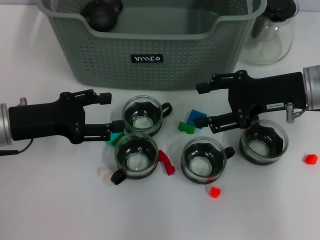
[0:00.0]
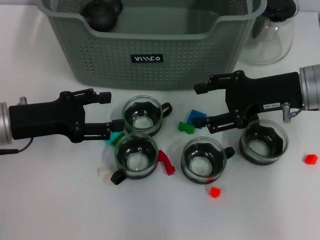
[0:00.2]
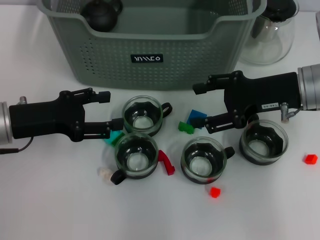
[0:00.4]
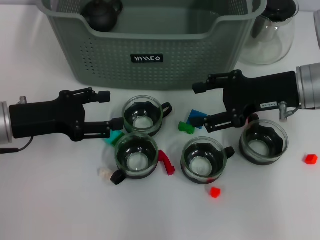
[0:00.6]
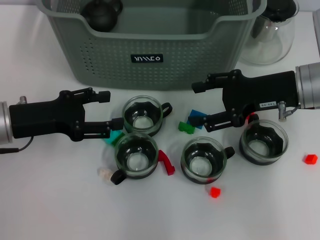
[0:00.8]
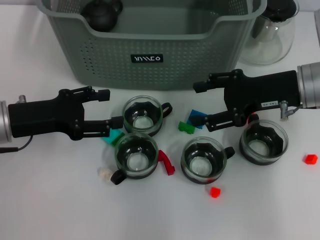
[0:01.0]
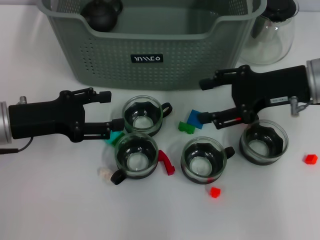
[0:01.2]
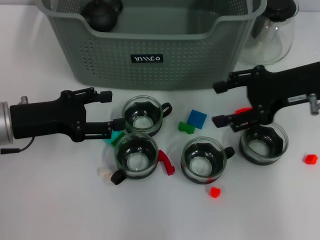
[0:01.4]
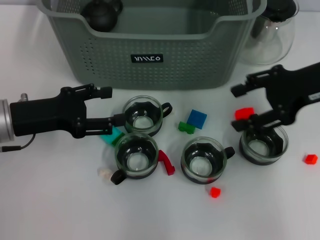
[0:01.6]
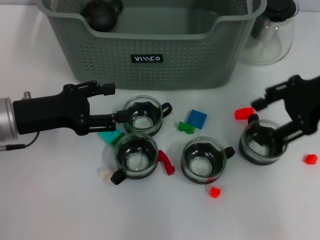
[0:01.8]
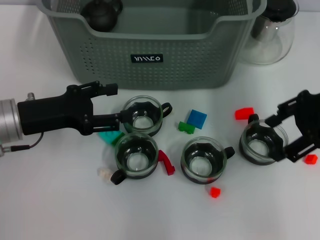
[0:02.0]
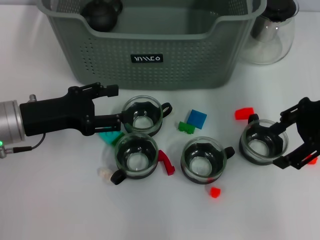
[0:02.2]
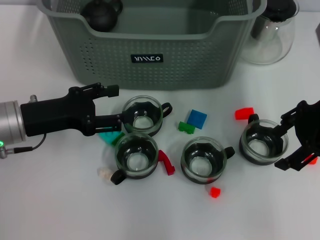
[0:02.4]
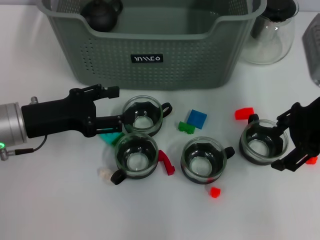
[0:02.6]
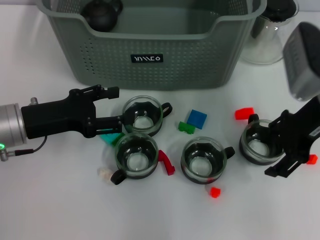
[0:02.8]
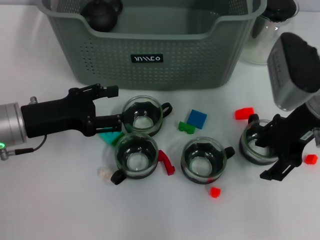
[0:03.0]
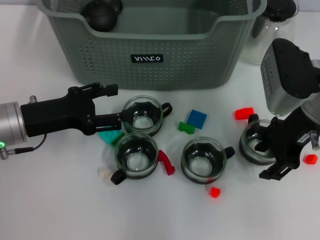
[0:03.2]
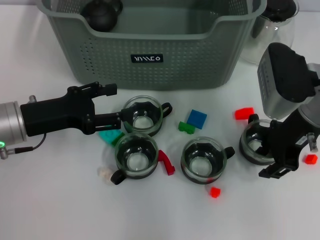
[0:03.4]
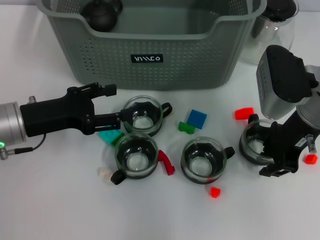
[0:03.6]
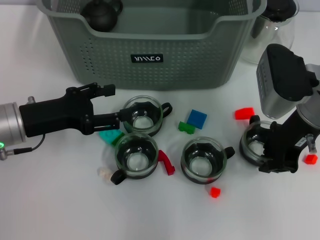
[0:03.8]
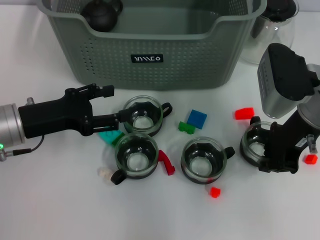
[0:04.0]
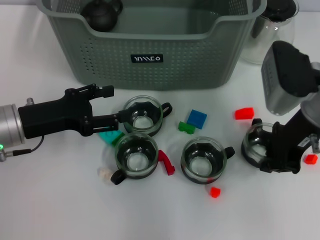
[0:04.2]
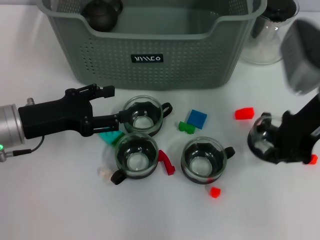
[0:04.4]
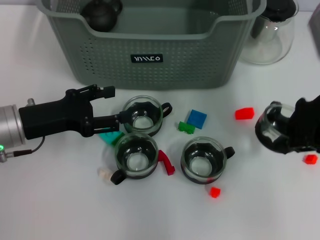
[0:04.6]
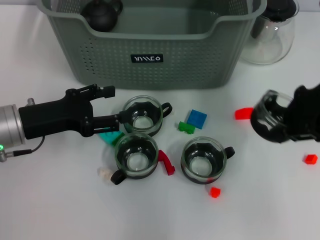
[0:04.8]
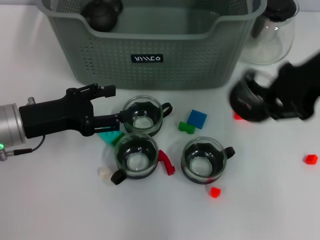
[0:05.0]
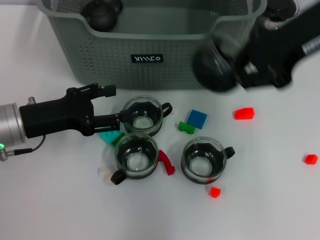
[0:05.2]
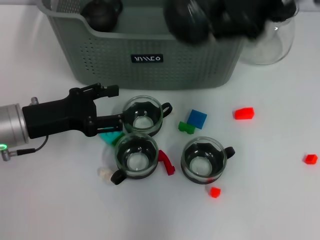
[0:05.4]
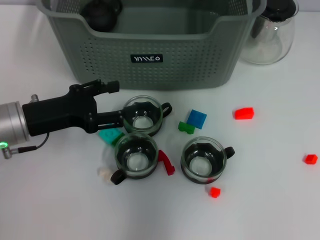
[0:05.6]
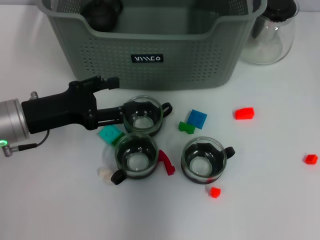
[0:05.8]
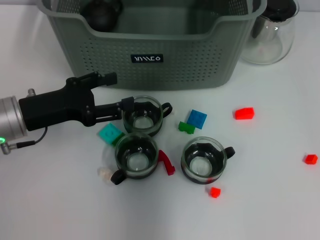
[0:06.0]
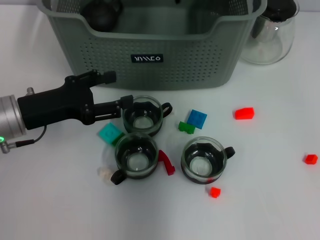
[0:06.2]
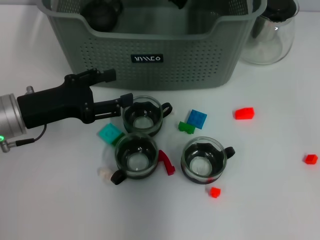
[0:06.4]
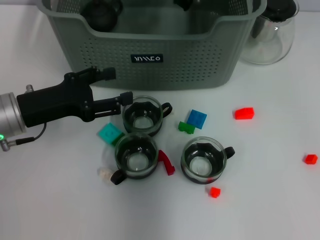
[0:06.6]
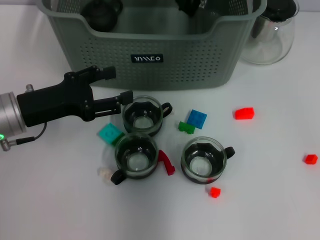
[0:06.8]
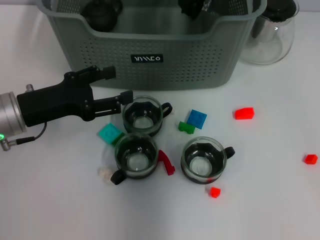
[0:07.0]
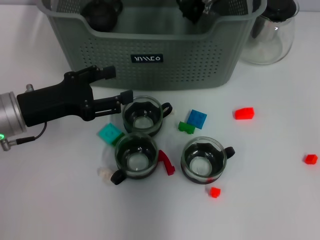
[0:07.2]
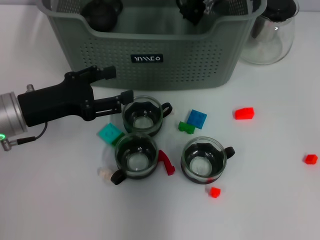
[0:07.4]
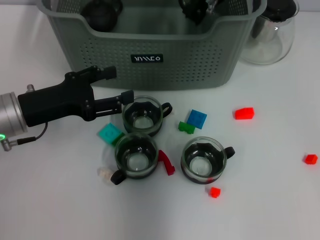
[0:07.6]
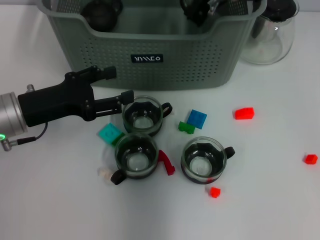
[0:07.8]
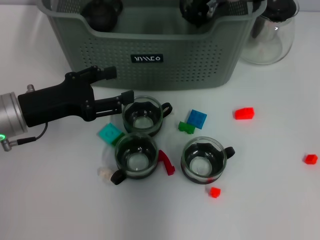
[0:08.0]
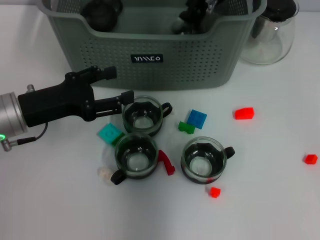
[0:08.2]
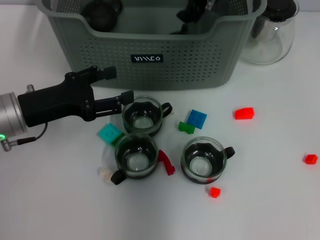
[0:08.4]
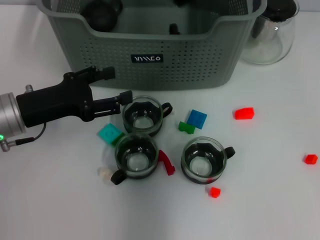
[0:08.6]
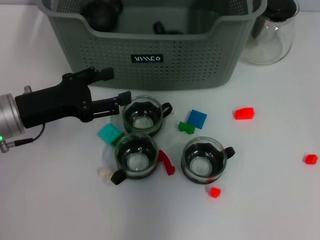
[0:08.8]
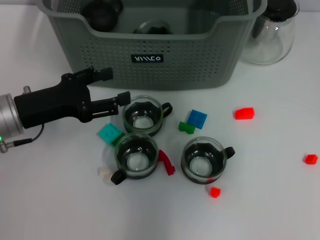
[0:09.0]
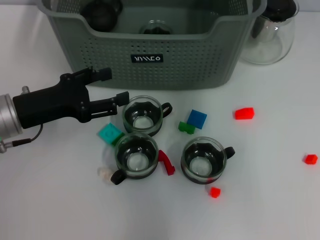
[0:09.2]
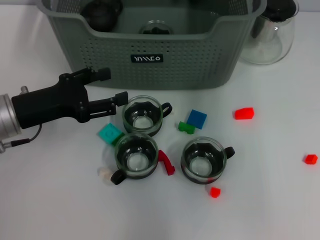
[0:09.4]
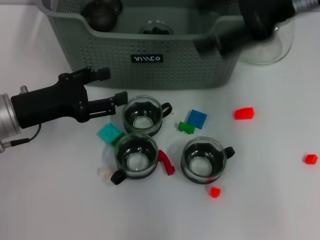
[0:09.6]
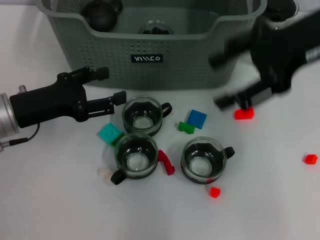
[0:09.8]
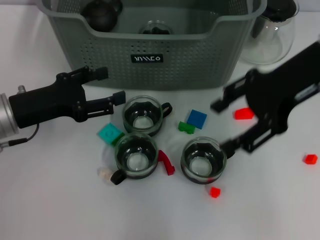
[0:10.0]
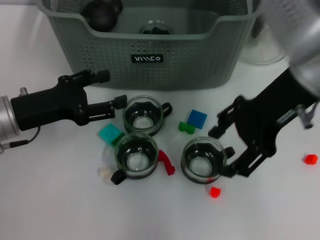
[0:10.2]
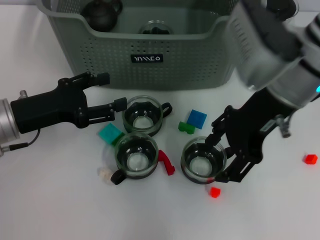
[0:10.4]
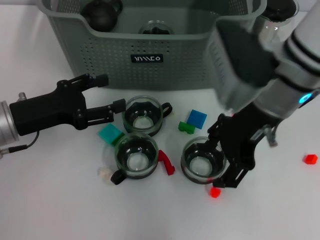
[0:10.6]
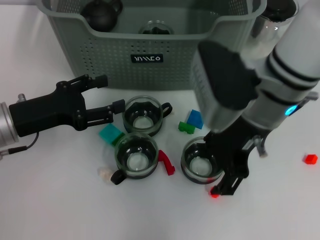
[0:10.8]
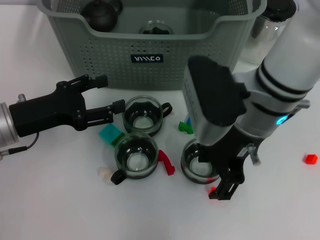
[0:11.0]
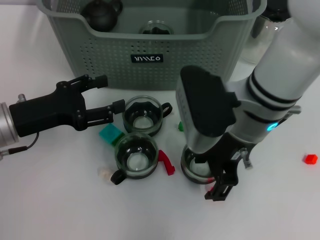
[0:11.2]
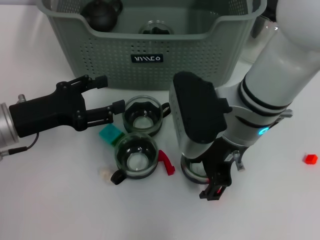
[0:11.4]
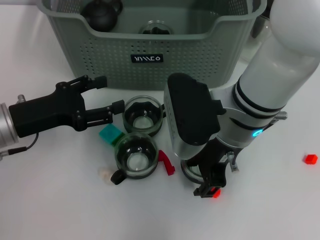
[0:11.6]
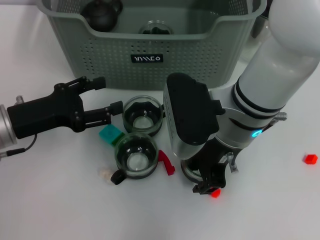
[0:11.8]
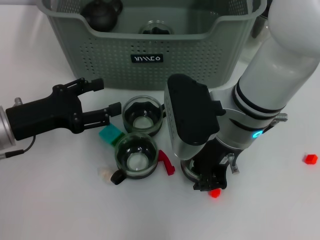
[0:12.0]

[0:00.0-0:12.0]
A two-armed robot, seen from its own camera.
Task of the whole recording: pick up the teacup on the table and place it into the storage bin, pick up the block on the table and place it into the storage bin.
Step, 0:00.0 to 0:04.0: Grasp the cup with right gripper.
Step, 0:04.2 to 0:08.4: Place the cup in the storage box with right gripper.
0:00.0 to 0:01.6: The right gripper moves upward, some 5 cm.
0:01.6 to 0:03.0: The right gripper changes place by approximately 5 cm.
0:03.0 to 0:04.4: The right gripper closes.
0:04.4 to 0:06.0: The right gripper goes some 20 cm forward, to the left and upward.
0:06.0 to 0:07.6: The right gripper goes roughly 5 cm downward.
0:07.6 to 0:09.0: The right gripper heads upward, covering some 10 cm, and opens.
0:09.0 to 0:10.4: The right gripper shifts approximately 15 cm downward and backward.
0:10.4 to 0:12.0: The right gripper is displaced downward and to the left by roughly 10 cm, and closes up.

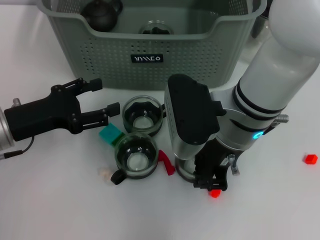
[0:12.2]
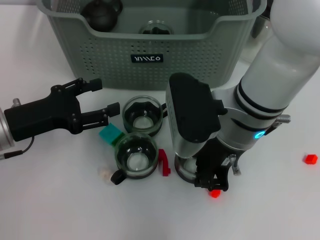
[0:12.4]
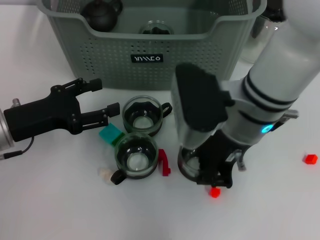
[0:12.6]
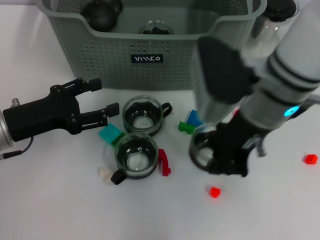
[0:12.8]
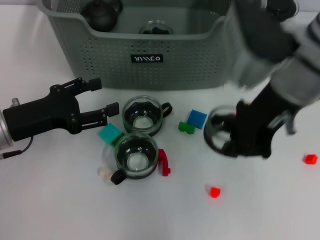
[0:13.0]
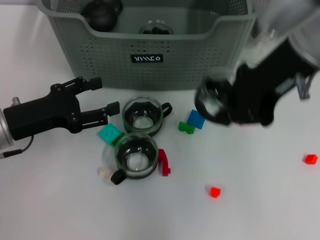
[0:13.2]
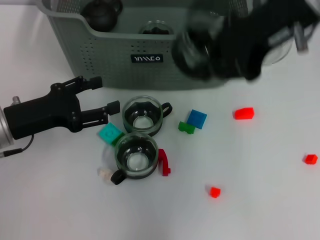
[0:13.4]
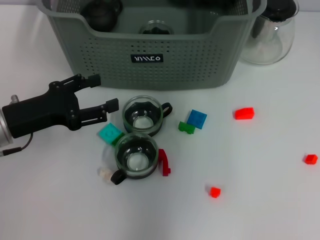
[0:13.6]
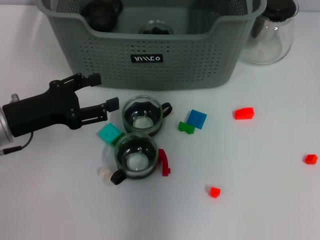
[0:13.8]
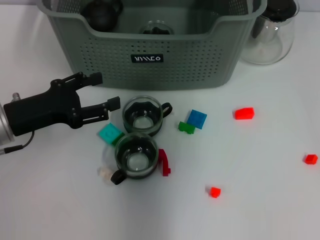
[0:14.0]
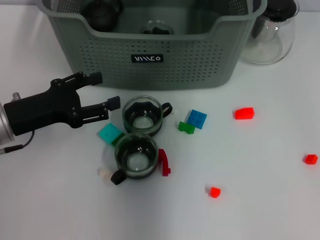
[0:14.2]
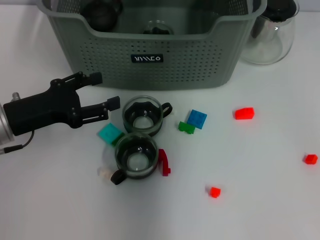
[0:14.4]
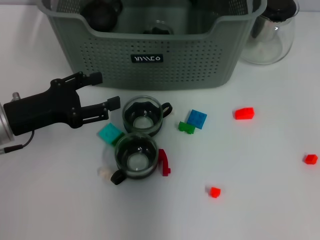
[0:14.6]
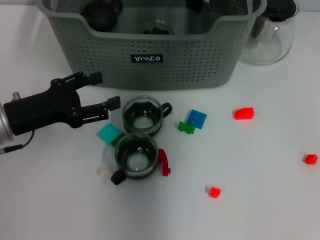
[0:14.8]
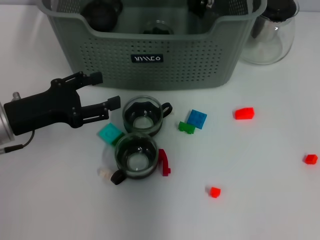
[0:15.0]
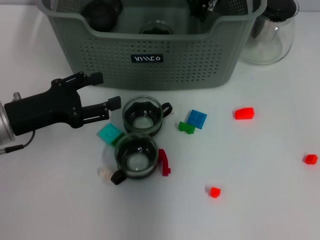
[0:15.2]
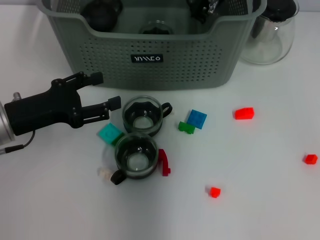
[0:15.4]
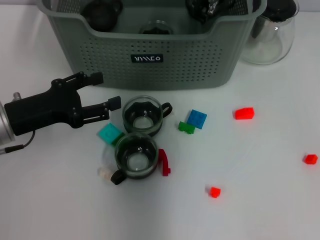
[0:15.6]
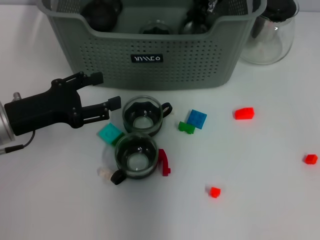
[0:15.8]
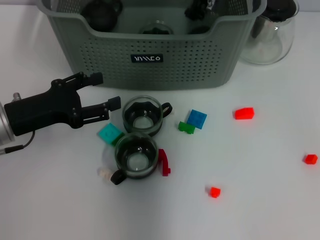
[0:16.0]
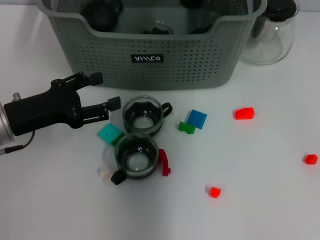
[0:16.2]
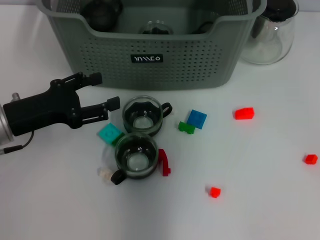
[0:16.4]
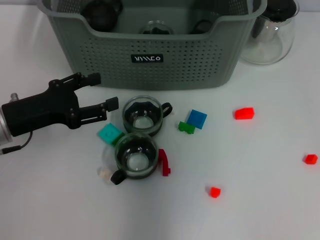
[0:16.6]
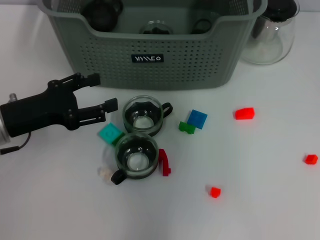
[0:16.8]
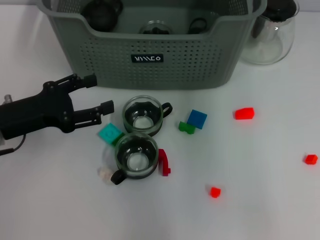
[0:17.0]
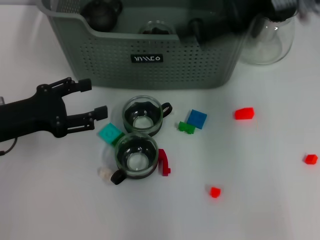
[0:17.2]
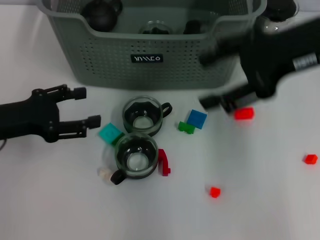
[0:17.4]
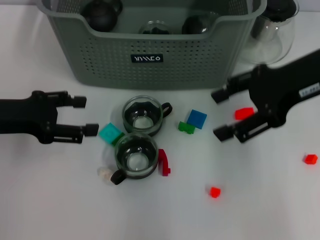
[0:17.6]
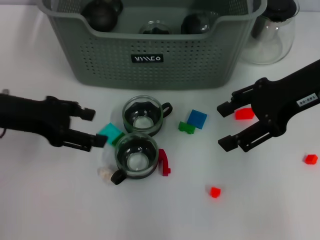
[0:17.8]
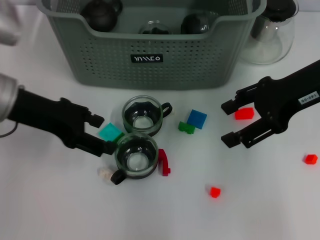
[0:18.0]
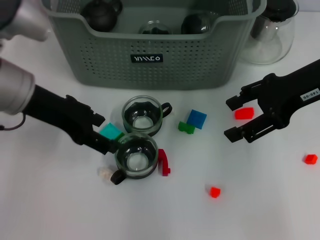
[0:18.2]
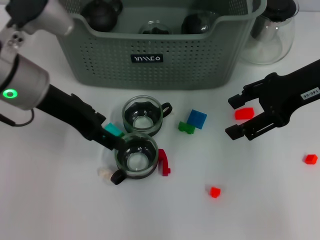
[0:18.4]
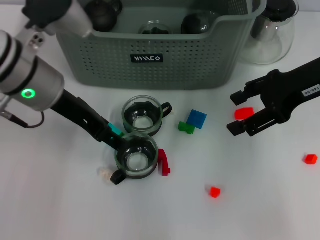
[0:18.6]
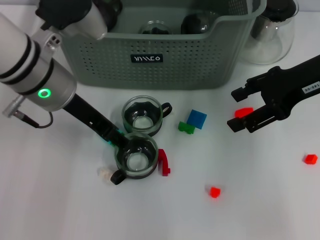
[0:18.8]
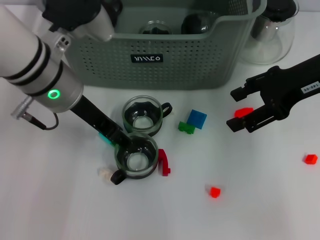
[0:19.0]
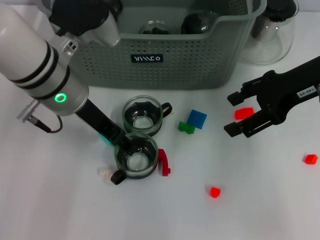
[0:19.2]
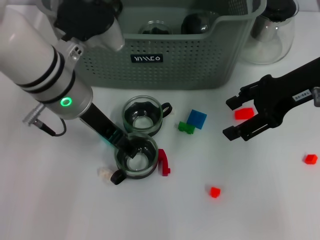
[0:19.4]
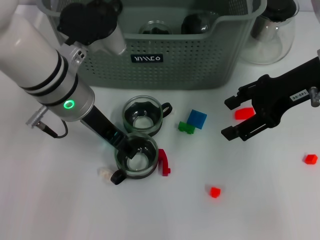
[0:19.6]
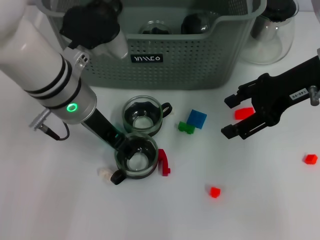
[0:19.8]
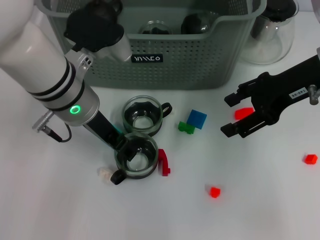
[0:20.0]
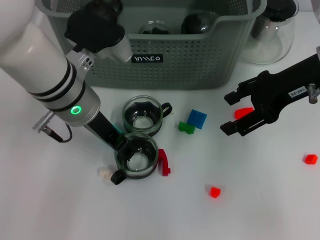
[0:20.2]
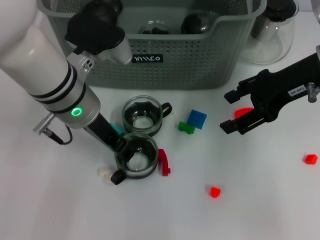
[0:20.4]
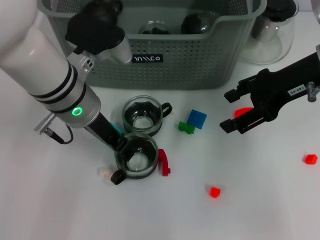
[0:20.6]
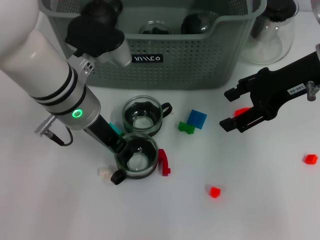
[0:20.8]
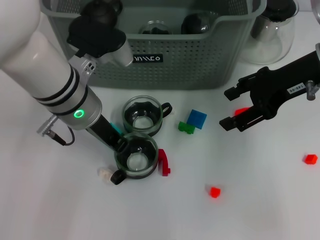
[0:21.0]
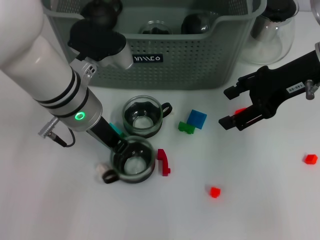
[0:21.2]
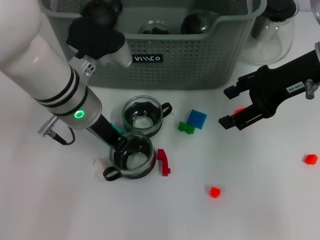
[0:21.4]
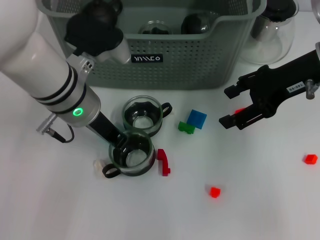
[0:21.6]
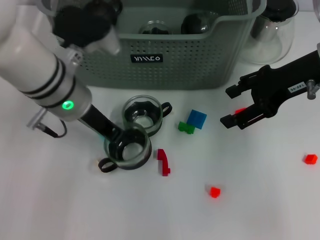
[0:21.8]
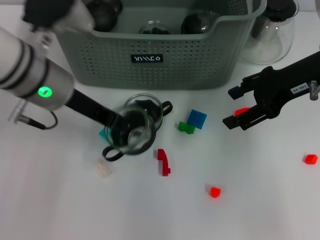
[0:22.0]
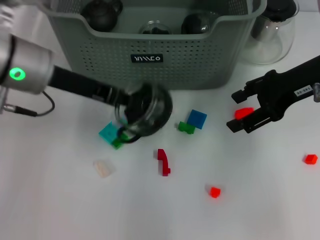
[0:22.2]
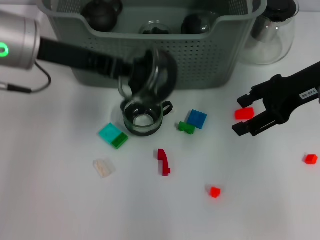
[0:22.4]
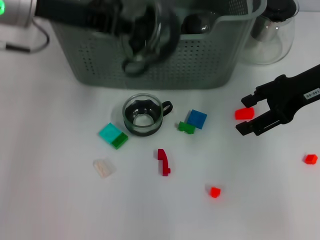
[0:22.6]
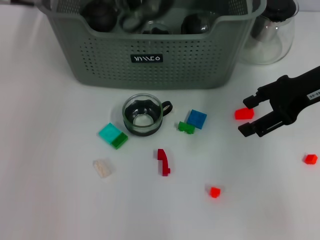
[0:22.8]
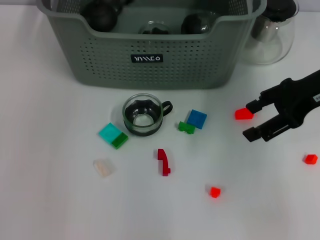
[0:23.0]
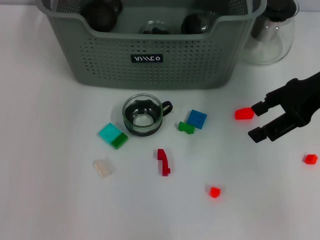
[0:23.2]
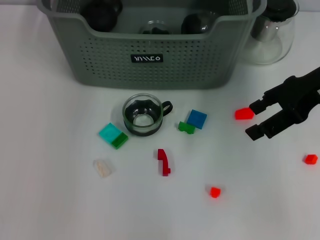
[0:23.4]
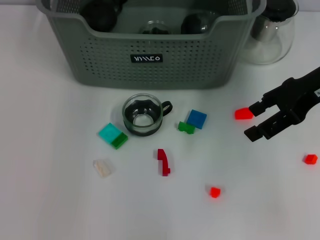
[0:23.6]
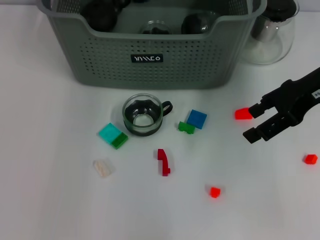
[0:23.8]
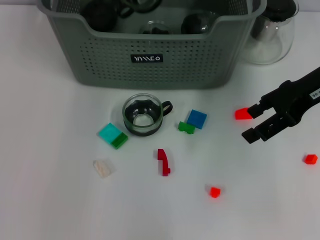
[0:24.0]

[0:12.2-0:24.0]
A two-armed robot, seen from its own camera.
Task of the whole recording: pick up the teacup on the table and place it into the storage bin, pick up the block on the table and place it into the storage bin.
Step, 0:12.4 to 0:15.8: Place the cup in the storage box with right gripper.
Step, 0:16.2 to 0:21.4: Grasp the cup with left gripper.
0:12.2 to 0:13.6: The right gripper heads upward, covering some 20 cm, and closes up.
0:13.6 to 0:15.2: The right gripper goes approximately 20 cm downward, forward and to the left.
0:15.2 to 0:16.6: The right gripper travels upward by about 10 cm, and opens up.
0:16.6 to 0:18.2: The right gripper moves to the right, backward and downward, approximately 20 cm, and opens up. Meanwhile the left gripper goes about 10 cm upward and to the right.
0:18.2 to 0:19.6: The left gripper is displaced to the right by roughly 10 cm.
0:19.6 to 0:21.0: The left gripper closes its fingers.
0:21.0 to 0:22.6: The left gripper is displaced upward and to the left by roughly 15 cm.
0:22.6 to 0:24.0: The left gripper goes approximately 15 cm forward and to the right.
